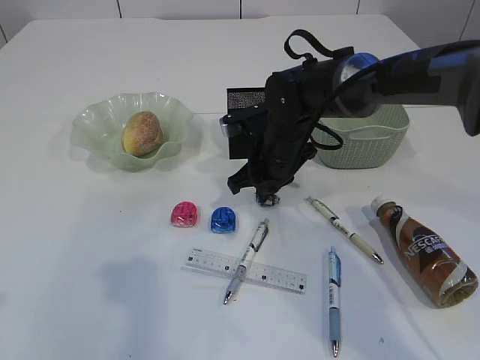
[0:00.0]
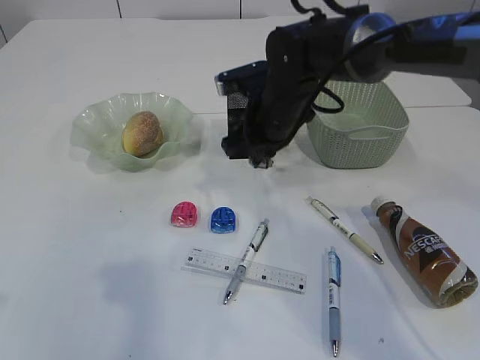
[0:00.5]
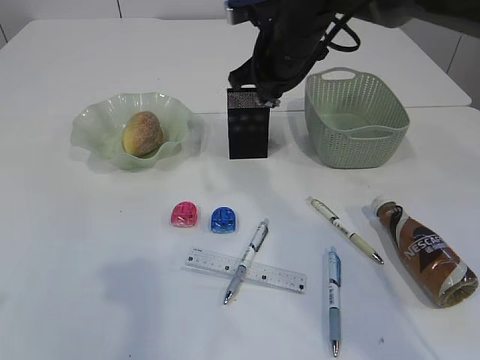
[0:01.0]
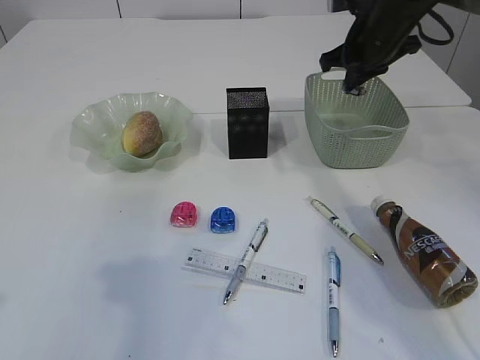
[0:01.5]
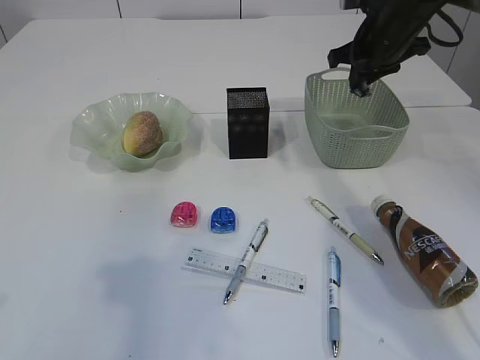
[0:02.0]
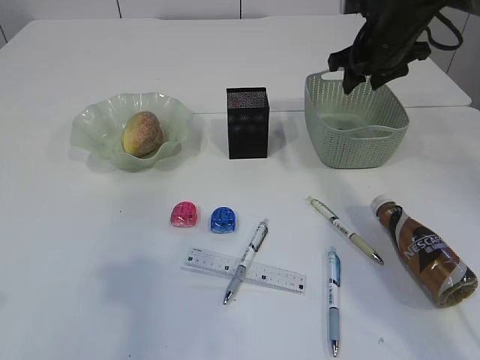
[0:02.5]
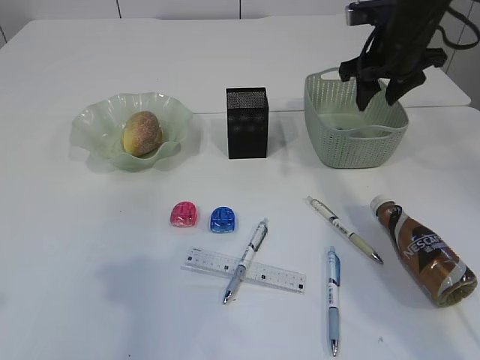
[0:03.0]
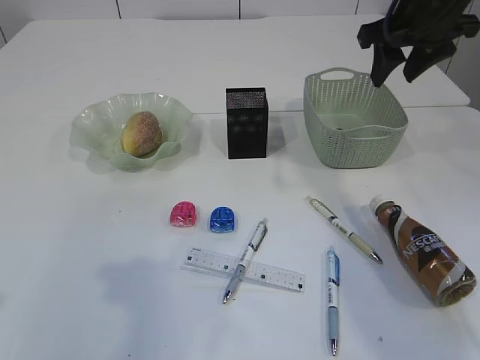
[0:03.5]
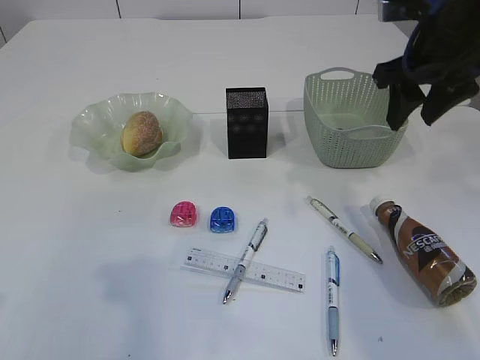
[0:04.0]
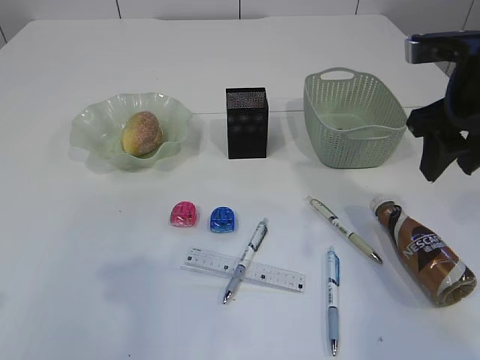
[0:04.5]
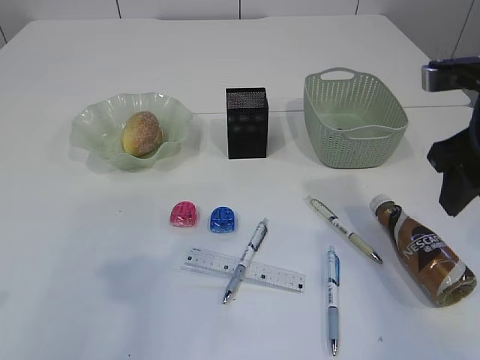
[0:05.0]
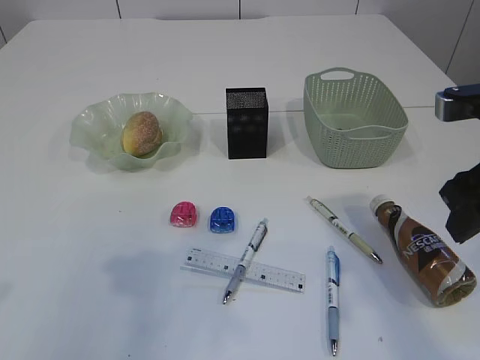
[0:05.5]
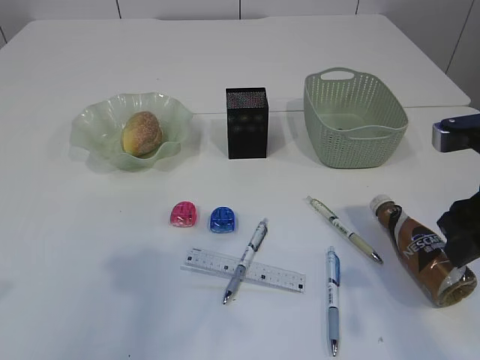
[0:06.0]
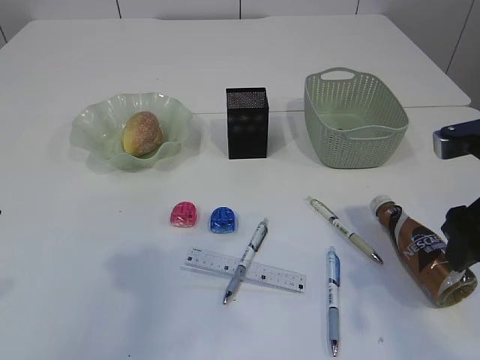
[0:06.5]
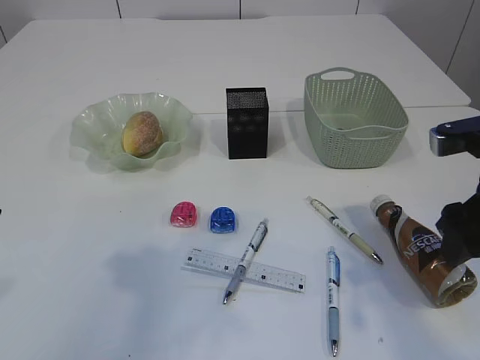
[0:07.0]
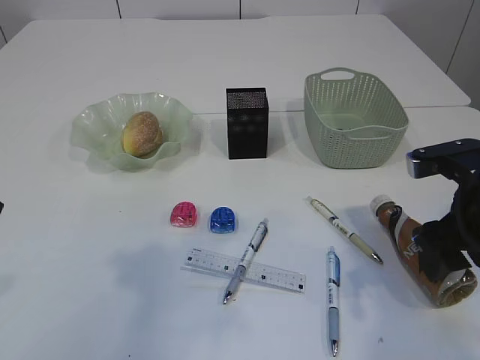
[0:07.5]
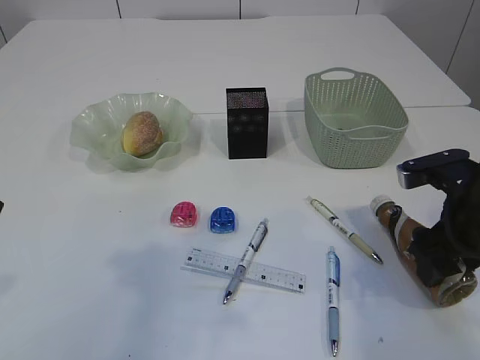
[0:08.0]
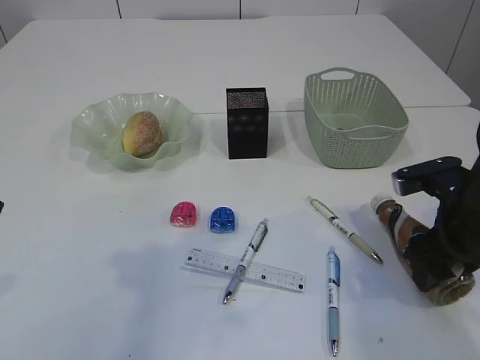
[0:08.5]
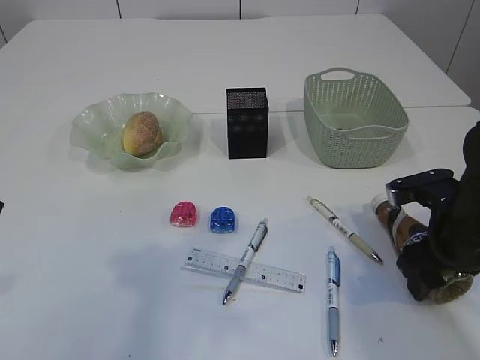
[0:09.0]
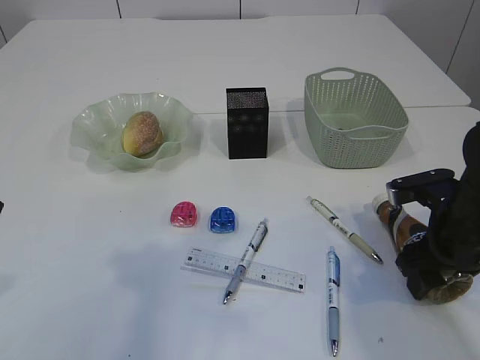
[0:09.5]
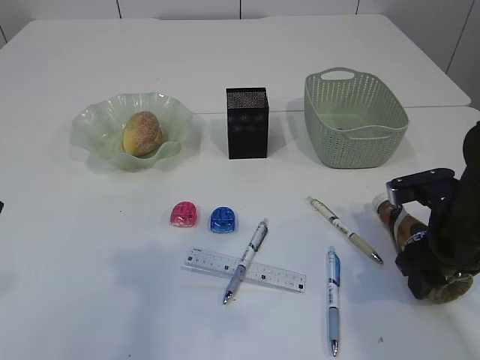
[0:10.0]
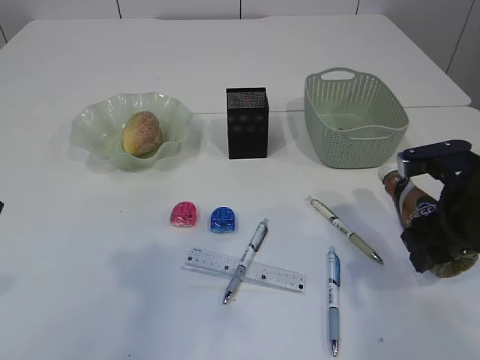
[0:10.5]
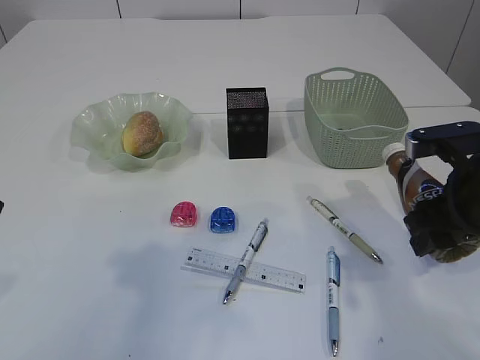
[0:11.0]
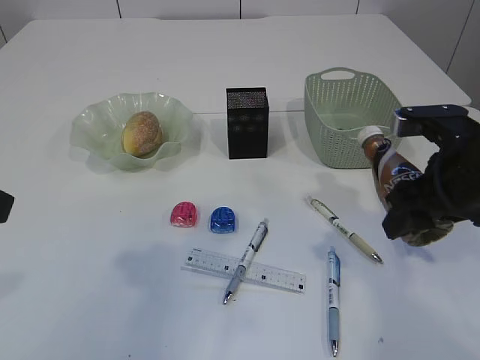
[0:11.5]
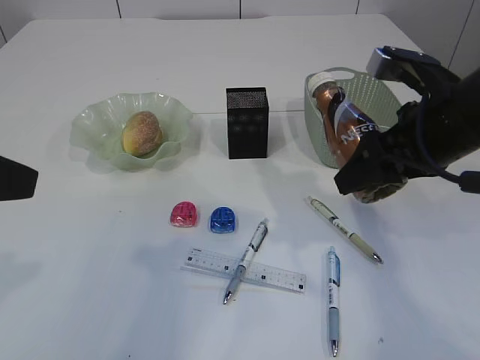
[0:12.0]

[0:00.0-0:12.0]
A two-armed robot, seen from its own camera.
Step, 0:01.0 to 0:03.0: Place the waste paper in the basket.
Step, 0:03.5 to 0:11.0: Pick up the bottle with the right arm.
0:00.0 to 0:02.0: The right gripper heads to the right, upward and forward, covering about 20 cm.
0:02.0 to 0:04.0: The right gripper heads backward, covering about 10 cm, and opens its fingers.
0:04.0 to 0:06.0: The right gripper shifts some 15 cm backward and downward.
0:06.0 to 0:08.0: The right gripper travels downward by some 5 cm.
0:08.0 to 0:10.0: The grippers make only small movements.
0:10.0 to 0:12.0: The right gripper travels upward by some 10 cm.

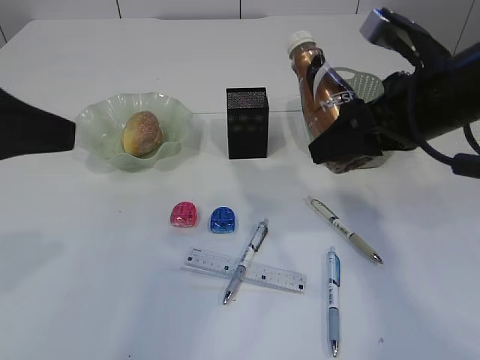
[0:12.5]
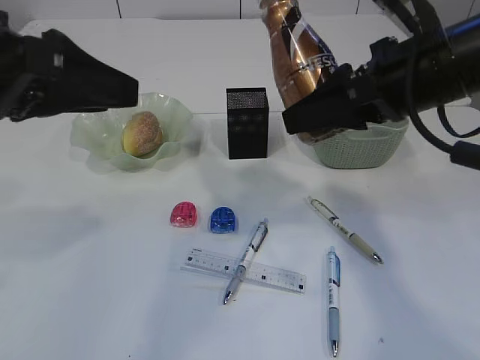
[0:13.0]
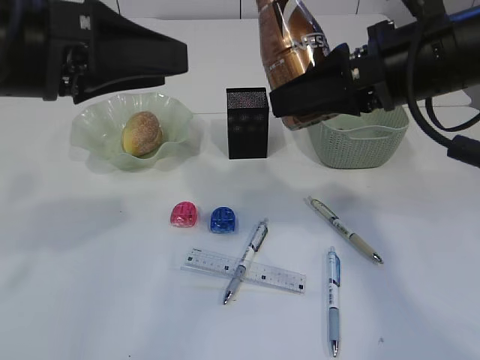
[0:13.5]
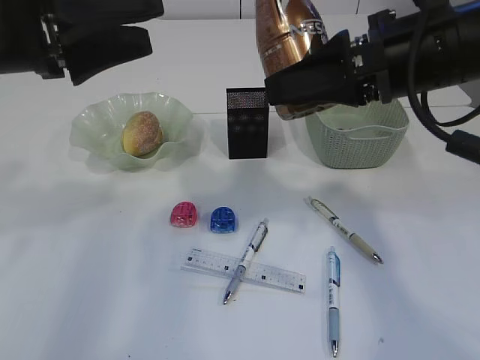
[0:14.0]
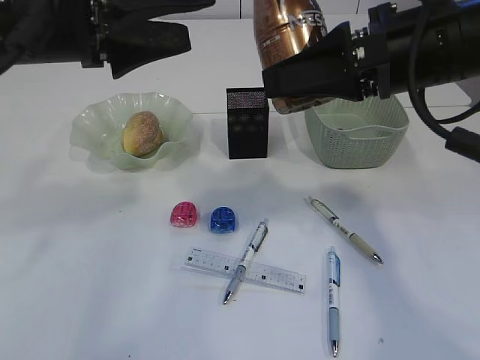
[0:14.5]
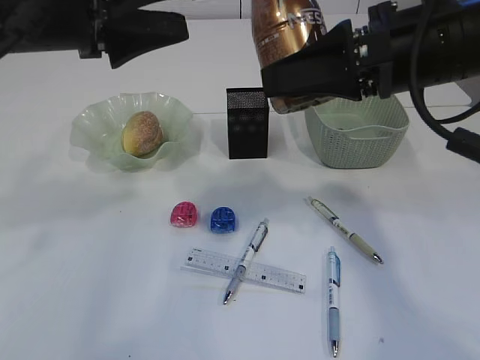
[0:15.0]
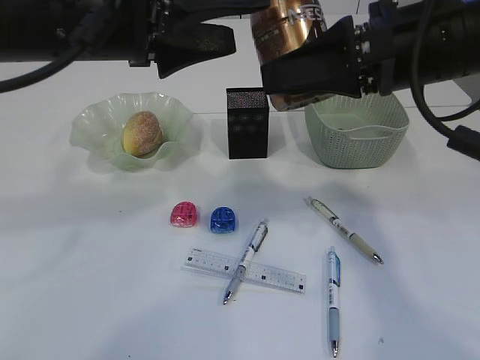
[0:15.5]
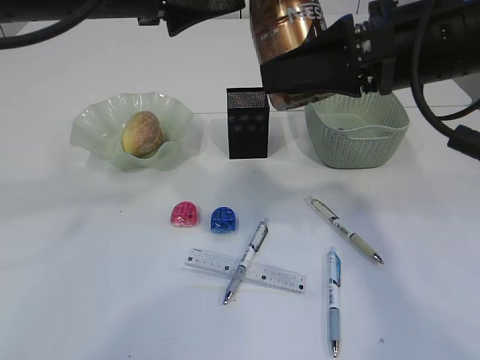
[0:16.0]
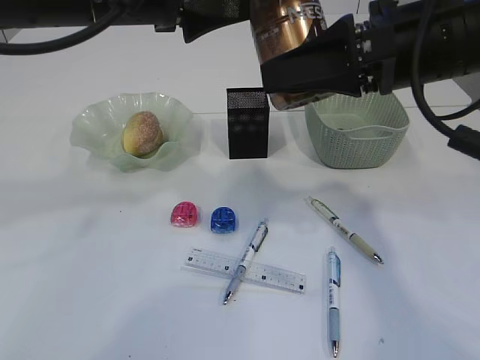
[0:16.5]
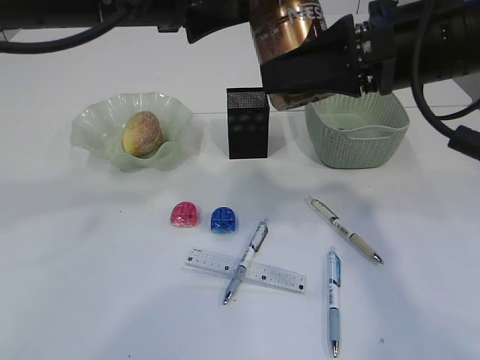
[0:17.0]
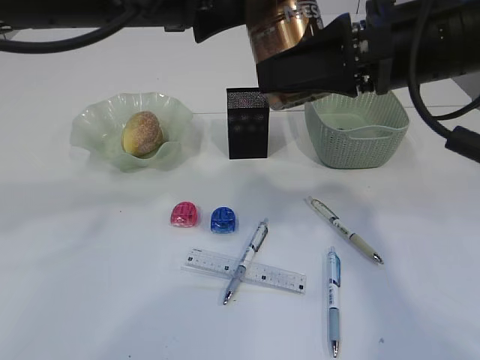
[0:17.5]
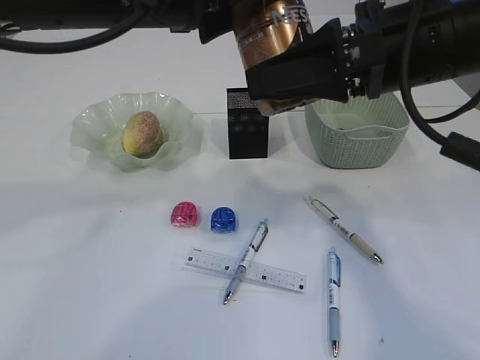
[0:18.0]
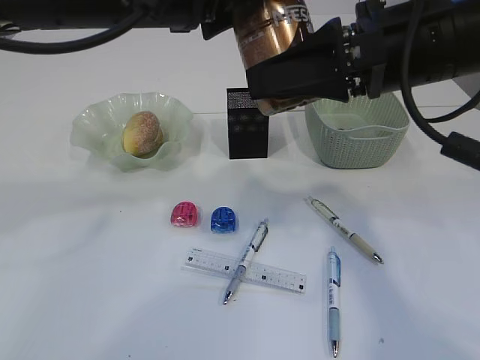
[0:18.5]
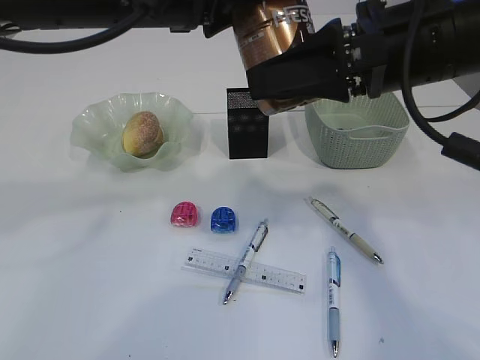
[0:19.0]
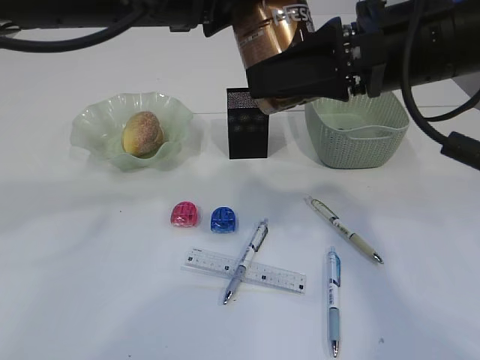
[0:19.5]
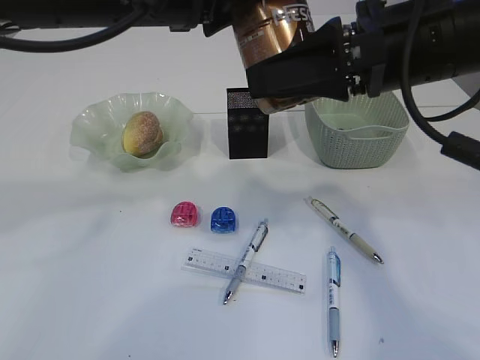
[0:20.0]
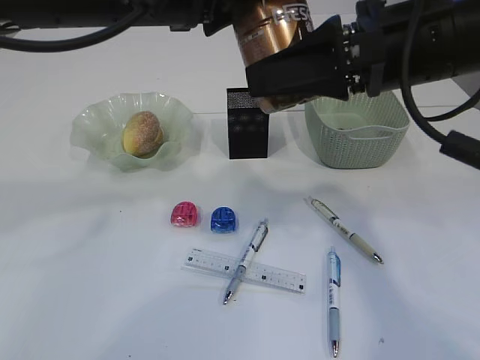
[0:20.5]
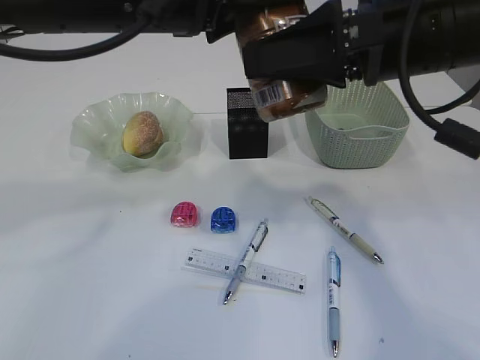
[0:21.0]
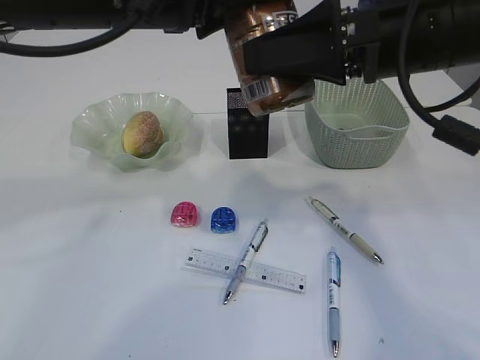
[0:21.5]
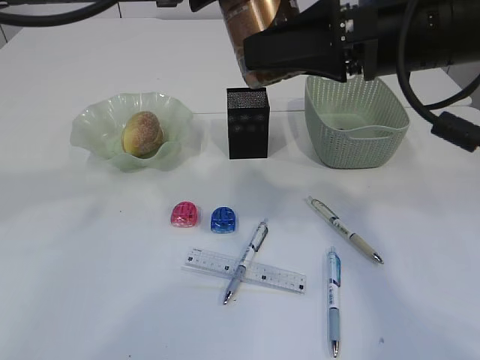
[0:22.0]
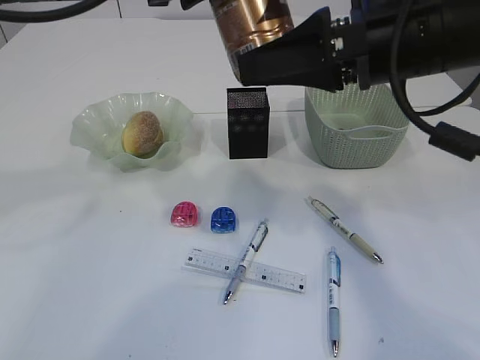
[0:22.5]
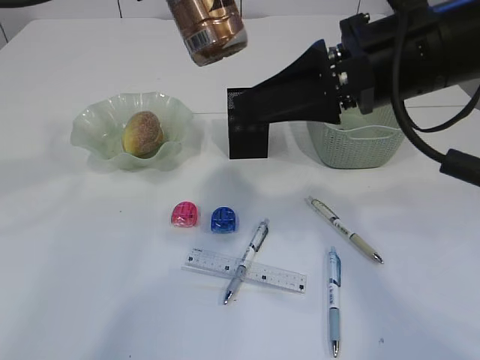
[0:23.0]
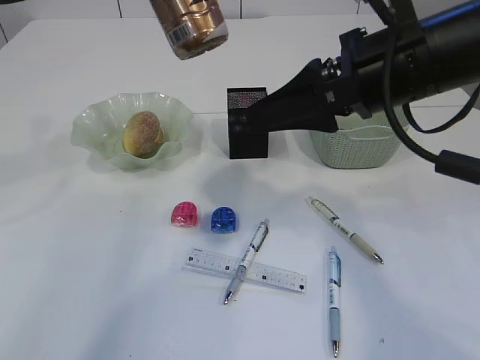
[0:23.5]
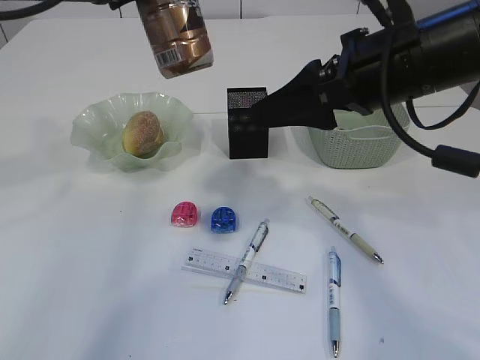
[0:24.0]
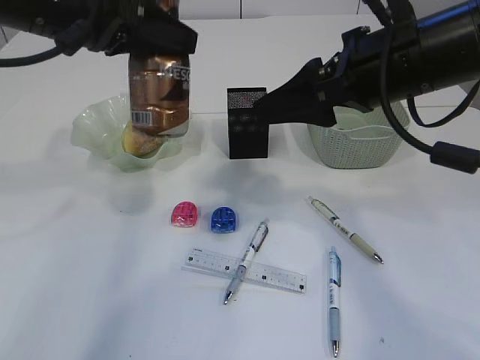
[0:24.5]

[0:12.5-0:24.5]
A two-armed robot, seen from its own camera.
Step, 0:12.5 to 0:23.0: transfer the bottle to the left arm.
0:12.5 to 0:14.5: The left gripper goes some 10 cm forward and to the right, and opens its fingers.
0:14.5 to 0:16.5: The left gripper is displaced to the right by roughly 5 cm.
0:16.5 to 0:18.5: The left gripper closes.
0:18.5 to 0:20.5: Neither gripper changes place.
0:20.5 to 0:22.5: The grippers make only small movements.
0:22.5 to 0:24.5: The left gripper travels to the left by roughly 5 cm.

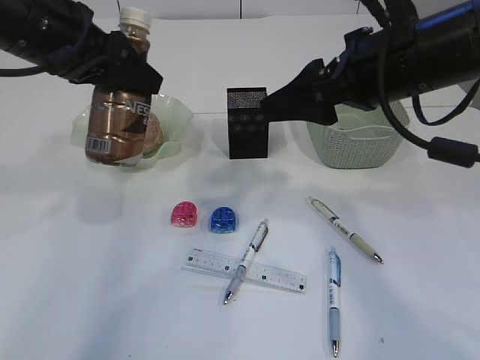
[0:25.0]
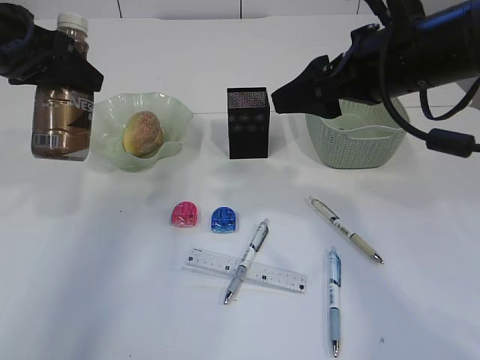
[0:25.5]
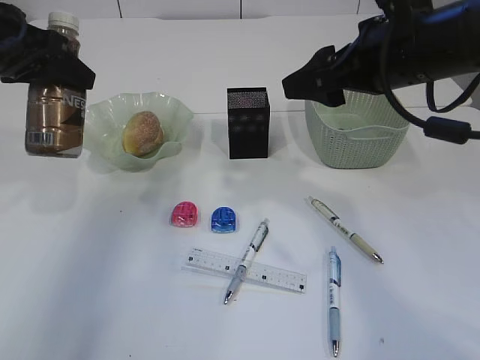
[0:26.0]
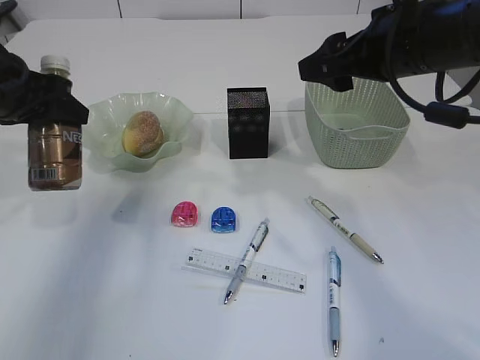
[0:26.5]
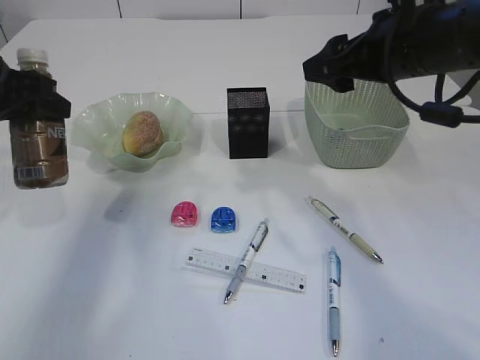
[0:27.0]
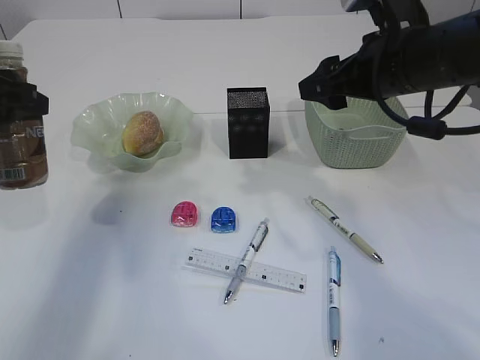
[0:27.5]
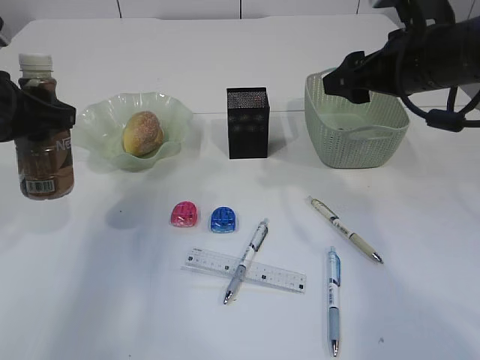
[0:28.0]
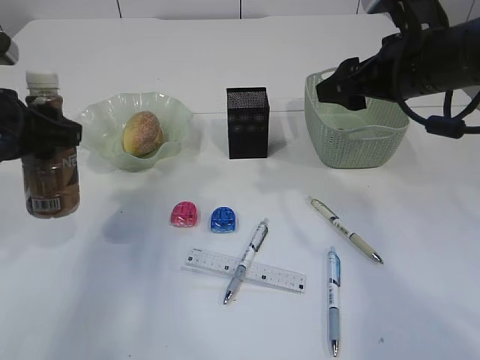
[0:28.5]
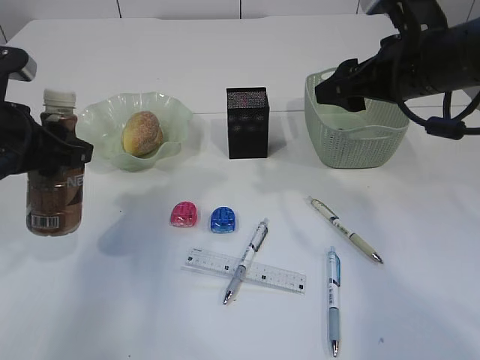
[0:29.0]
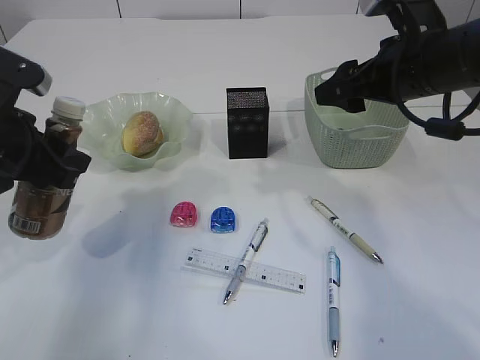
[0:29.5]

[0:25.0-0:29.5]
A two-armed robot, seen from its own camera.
0:25.0 to 0:27.0: The left gripper travels to the left by about 10 cm.
0:27.0 to 0:29.5: The left gripper is displaced backward by approximately 5 cm.
